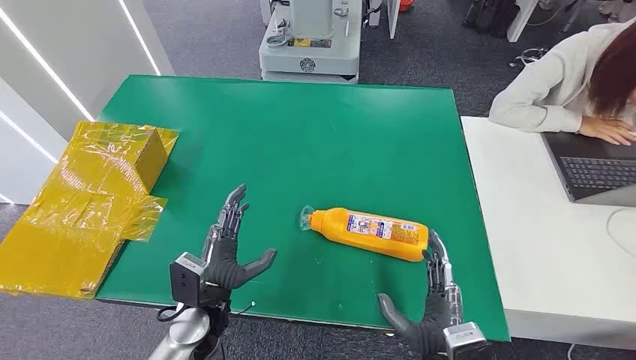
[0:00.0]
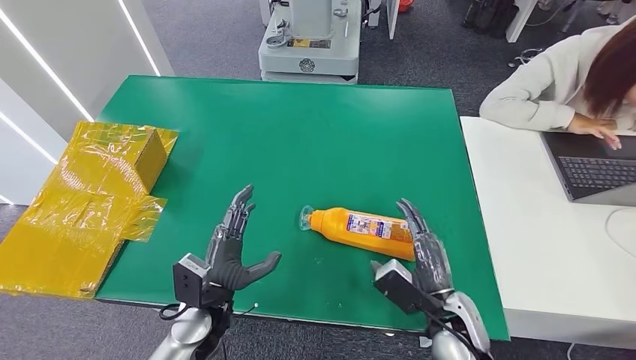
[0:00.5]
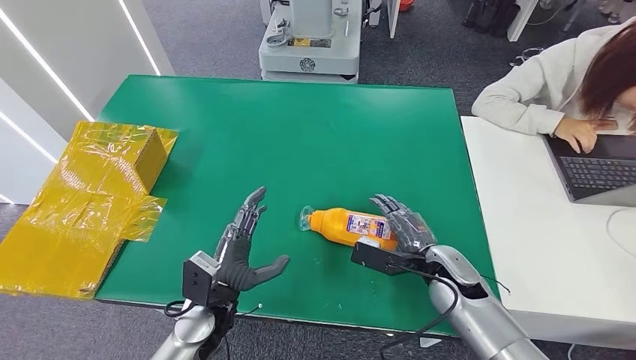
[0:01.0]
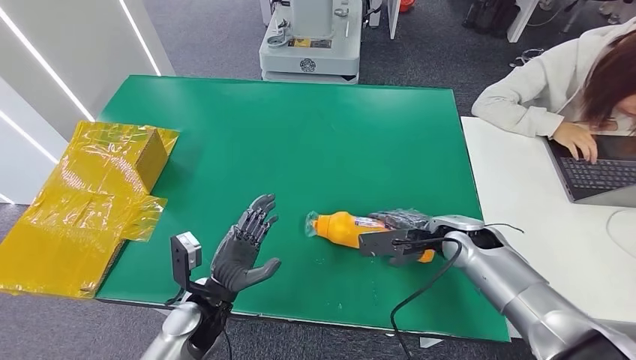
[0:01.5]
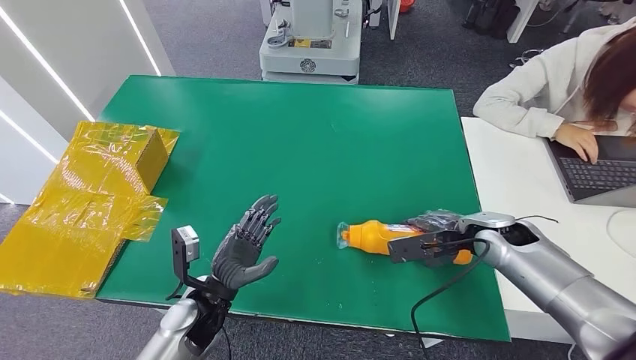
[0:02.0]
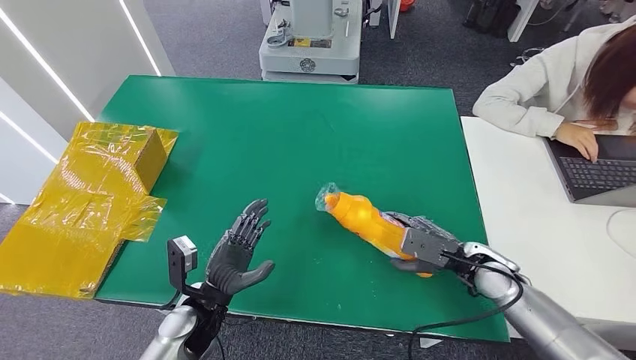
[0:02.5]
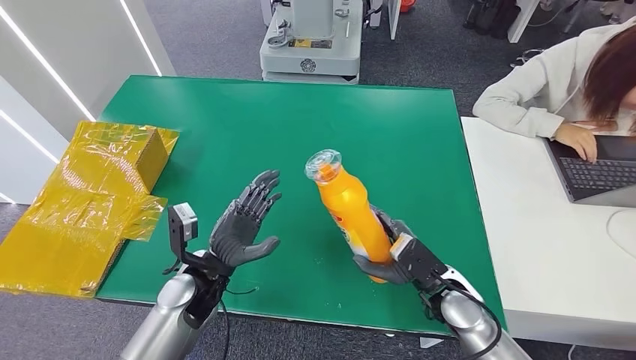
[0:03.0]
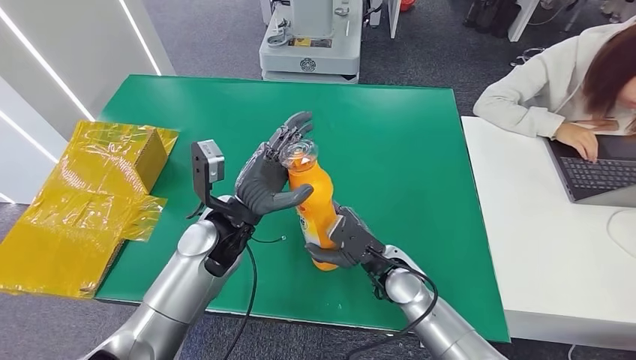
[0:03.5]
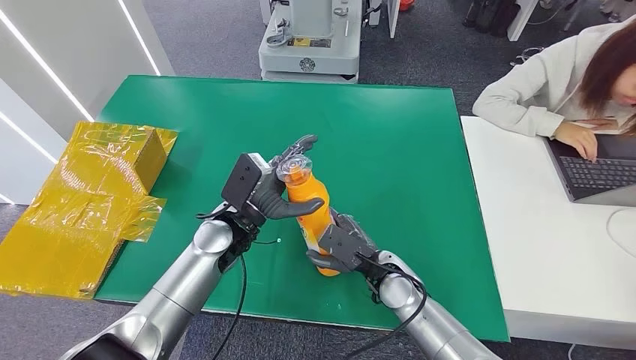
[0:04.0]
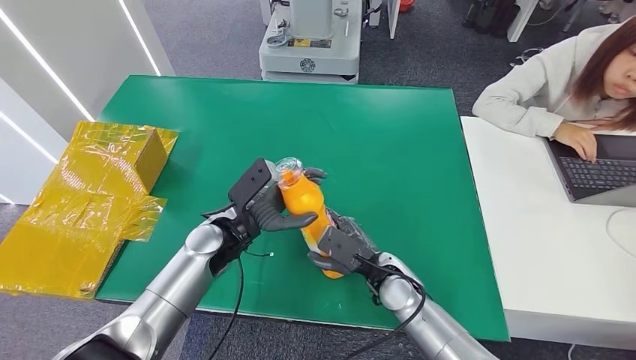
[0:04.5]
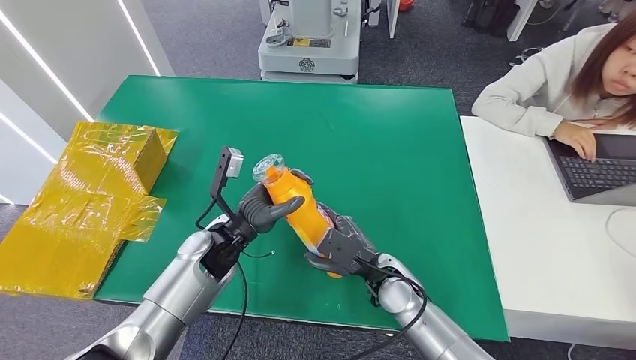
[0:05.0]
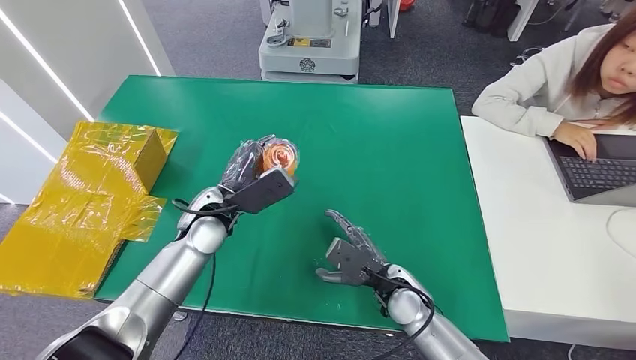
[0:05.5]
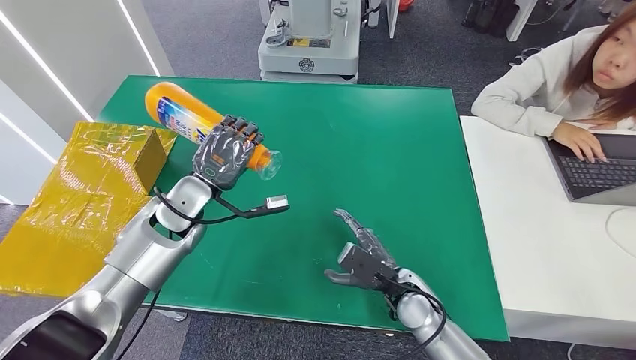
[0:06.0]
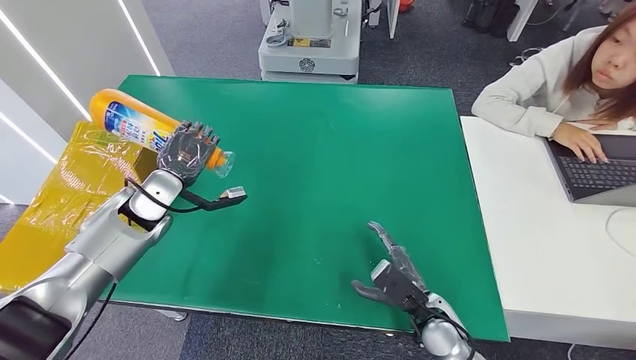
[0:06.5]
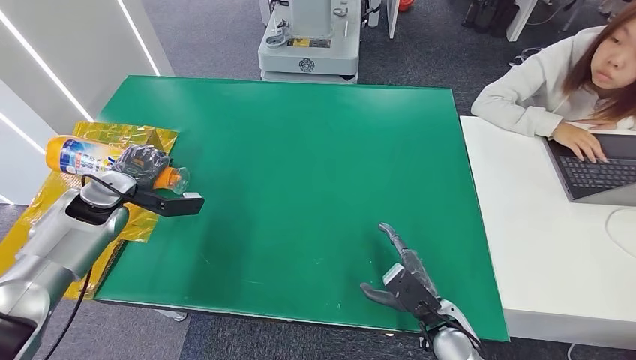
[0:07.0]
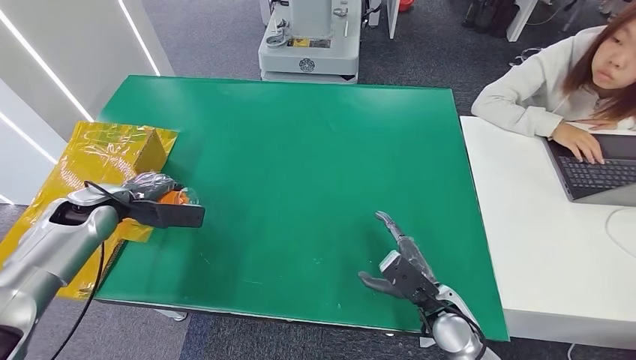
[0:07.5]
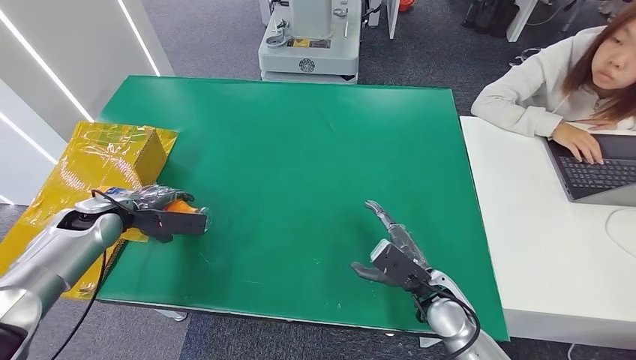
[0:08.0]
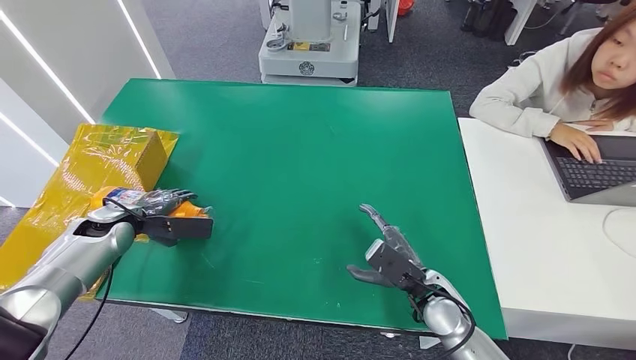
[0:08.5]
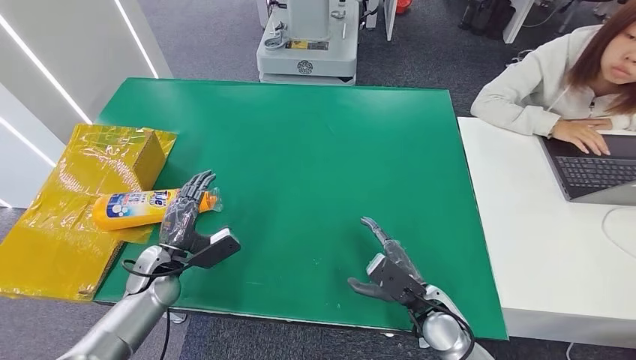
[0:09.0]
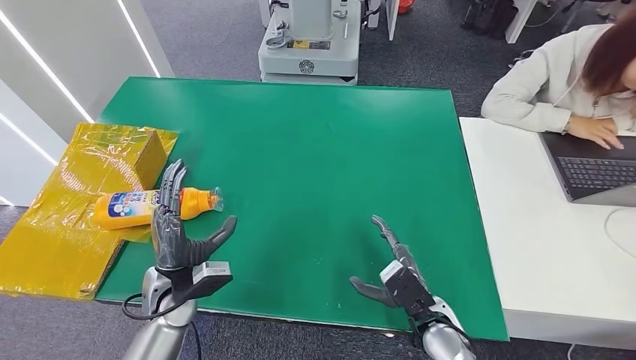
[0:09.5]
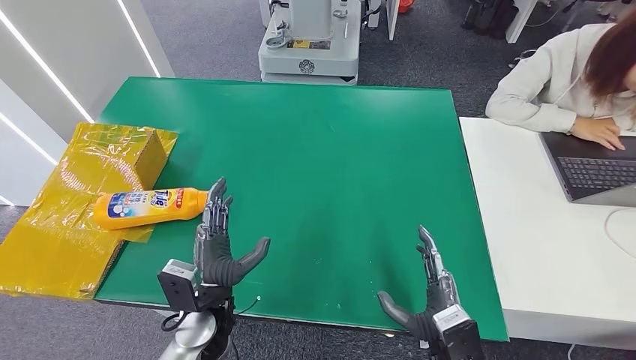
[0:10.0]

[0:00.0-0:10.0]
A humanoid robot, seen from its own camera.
Step, 0:00.0 to 0:02.5: Pick up the bottle from the table.
Step, 0:03.0 to 0:10.0: Turn the bottle to the front side.
0:04.0 to 0:06.0: The right hand shifts by approximately 5 cm, while the left hand travels to the left by some 10 cm.
0:06.0 to 0:08.0: The left hand goes roughly 20 cm to the left.
0:08.0 to 0:10.0: The left hand shifts some 30 cm to the right and backward. The right hand goes about 10 cm backward.
